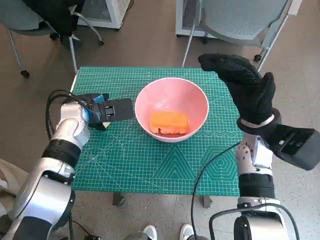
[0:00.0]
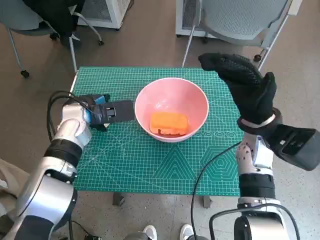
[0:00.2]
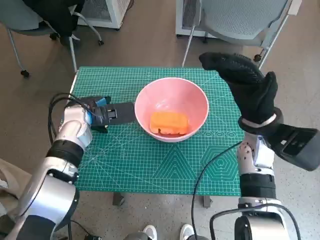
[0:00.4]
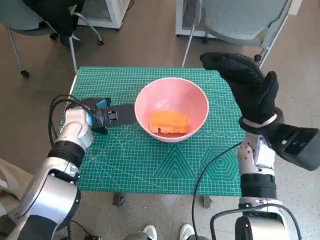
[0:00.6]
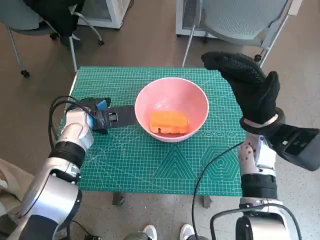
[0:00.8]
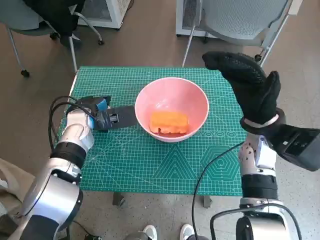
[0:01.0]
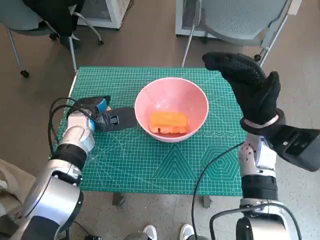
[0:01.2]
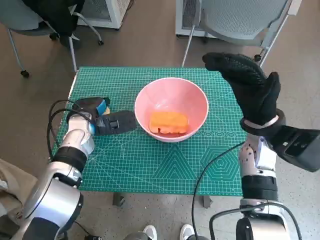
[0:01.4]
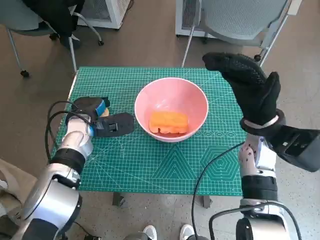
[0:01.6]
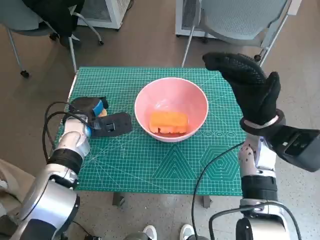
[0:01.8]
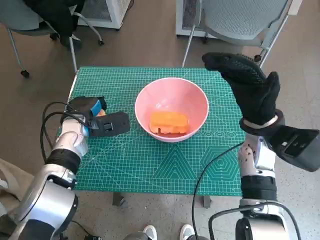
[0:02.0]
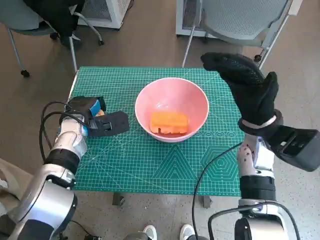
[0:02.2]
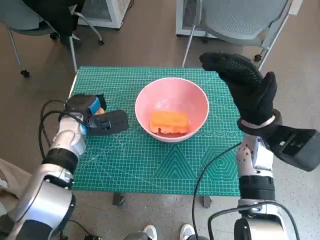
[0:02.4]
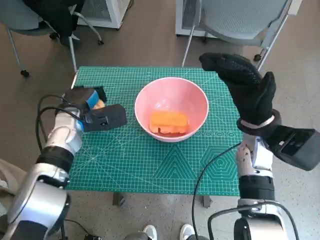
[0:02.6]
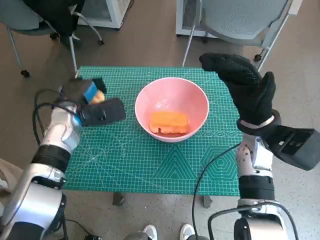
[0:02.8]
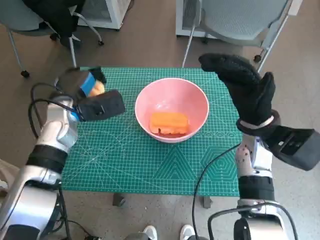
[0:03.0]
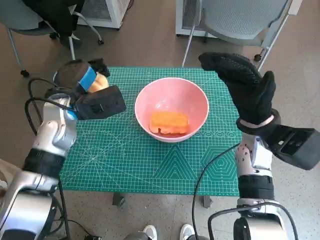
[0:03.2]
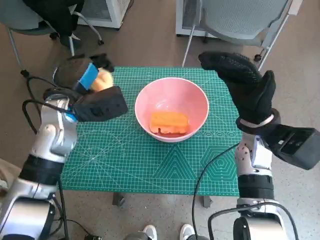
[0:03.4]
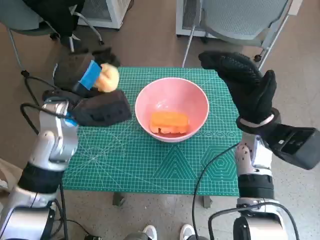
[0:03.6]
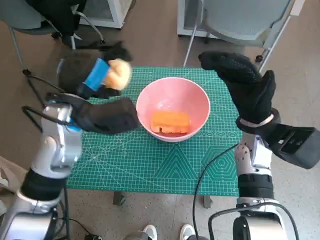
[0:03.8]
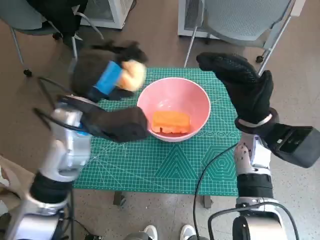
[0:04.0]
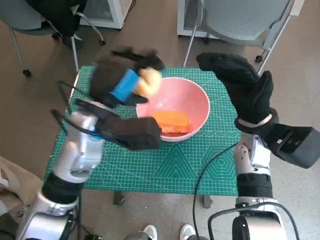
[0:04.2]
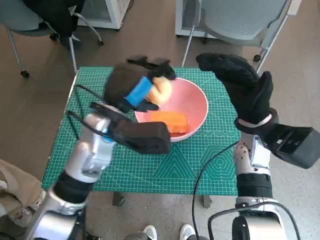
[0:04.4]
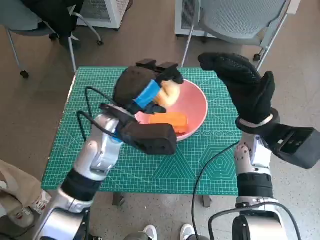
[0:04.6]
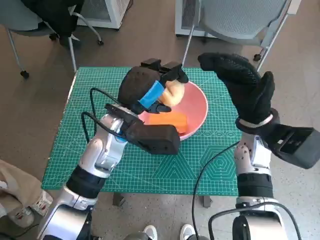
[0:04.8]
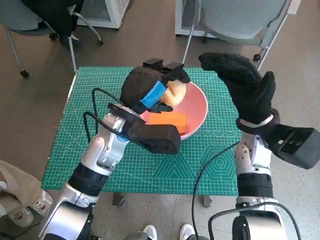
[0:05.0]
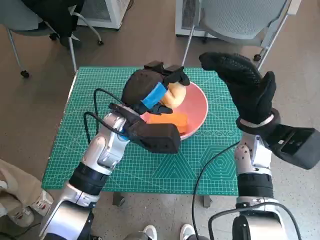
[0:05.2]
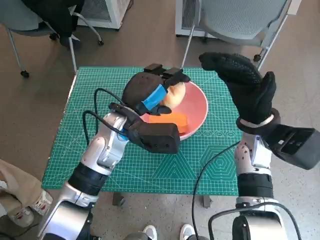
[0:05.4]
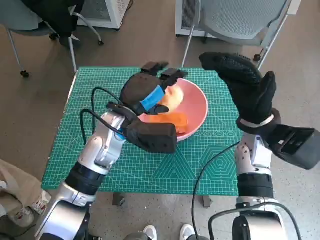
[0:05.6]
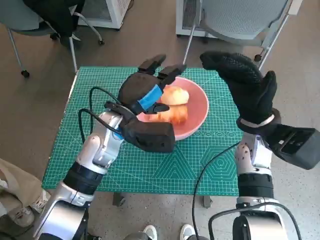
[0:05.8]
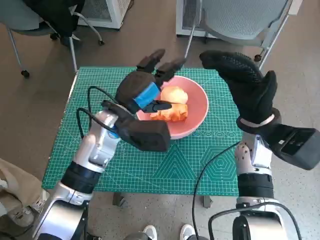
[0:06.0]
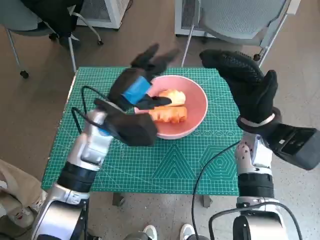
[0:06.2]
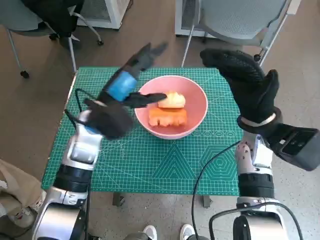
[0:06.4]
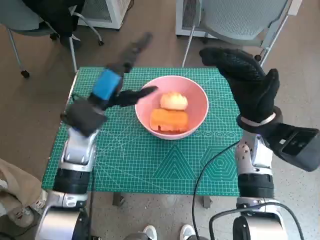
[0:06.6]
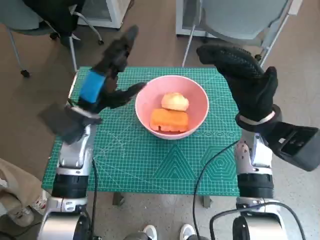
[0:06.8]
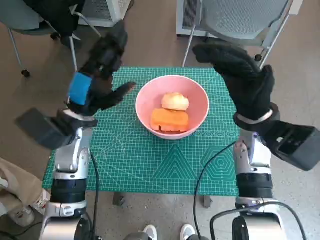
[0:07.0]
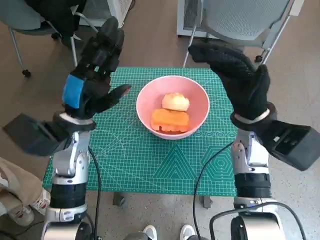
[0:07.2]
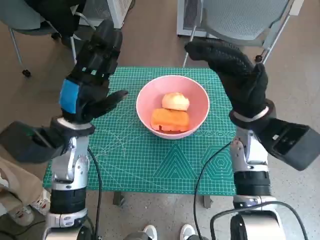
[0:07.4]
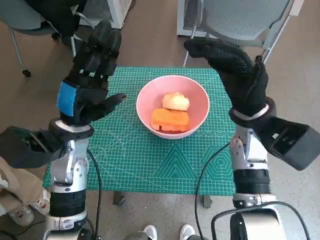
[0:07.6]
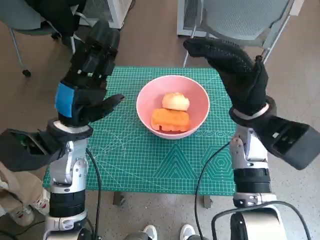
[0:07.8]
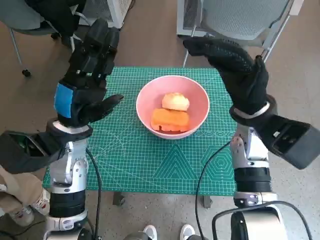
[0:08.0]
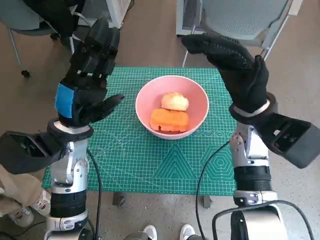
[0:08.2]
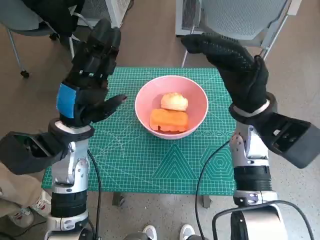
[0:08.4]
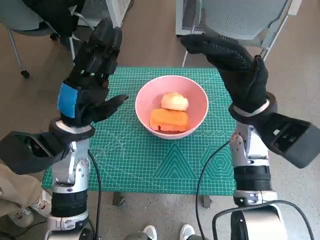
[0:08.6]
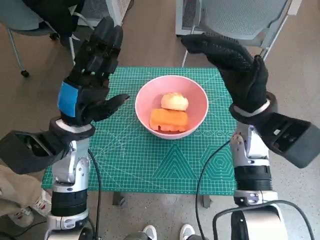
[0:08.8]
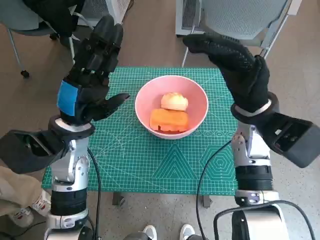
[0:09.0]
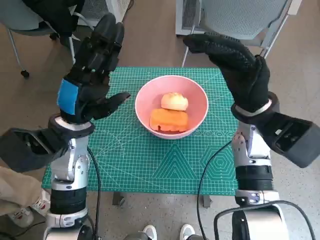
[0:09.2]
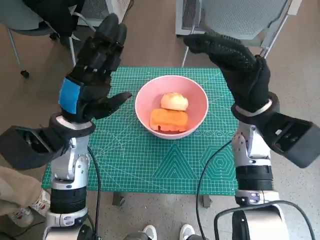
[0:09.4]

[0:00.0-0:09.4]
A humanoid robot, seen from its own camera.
Step, 1.8 to 5.8 s: Place the round bread in pink bowl with left hand.
0.0 to 1.6 s: The hands move only a little.
1.6 to 3.2 s: The left hand heads upward, covering about 5 cm.
3.2 to 4.8 s: The left hand goes some 10 cm to the right.
4.8 to 6.2 s: The hands move only a little.
6.2 to 7.8 s: The left hand travels to the left by approximately 5 cm.
7.8 to 9.4 s: Neither hand changes place.

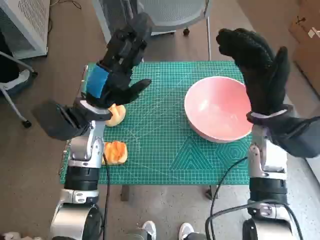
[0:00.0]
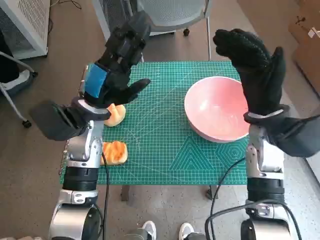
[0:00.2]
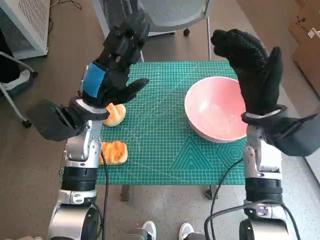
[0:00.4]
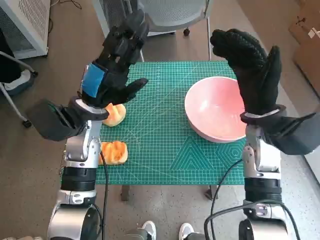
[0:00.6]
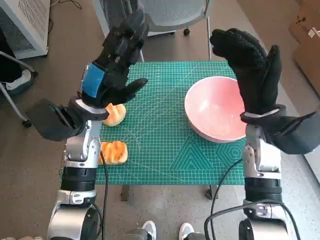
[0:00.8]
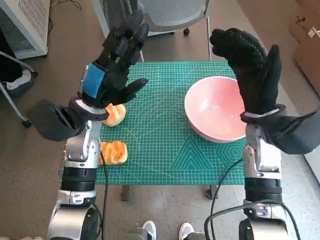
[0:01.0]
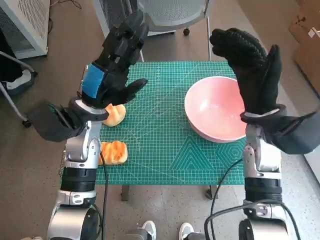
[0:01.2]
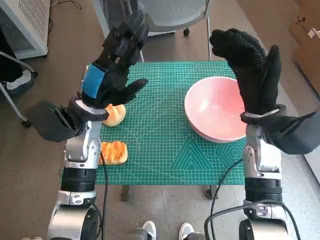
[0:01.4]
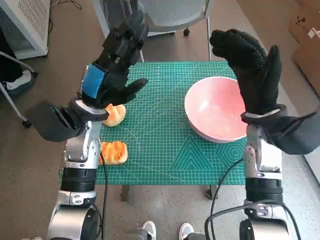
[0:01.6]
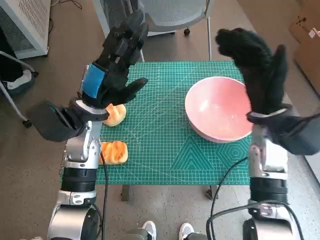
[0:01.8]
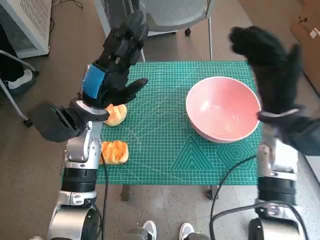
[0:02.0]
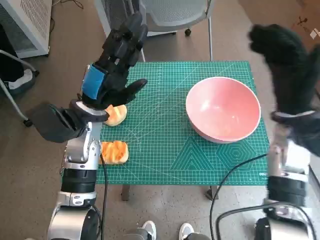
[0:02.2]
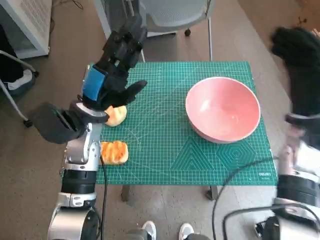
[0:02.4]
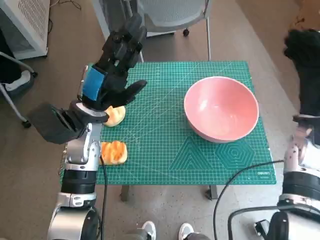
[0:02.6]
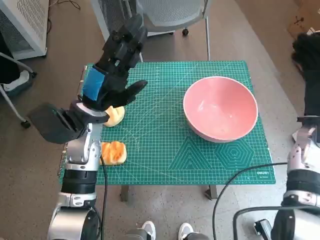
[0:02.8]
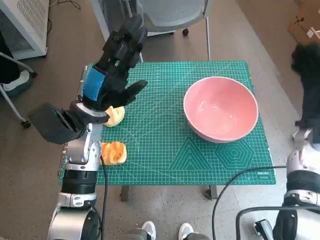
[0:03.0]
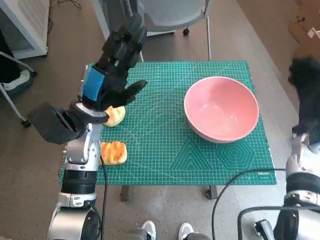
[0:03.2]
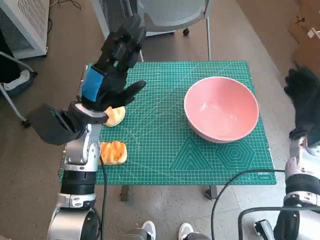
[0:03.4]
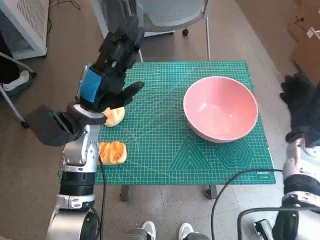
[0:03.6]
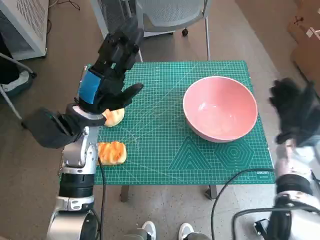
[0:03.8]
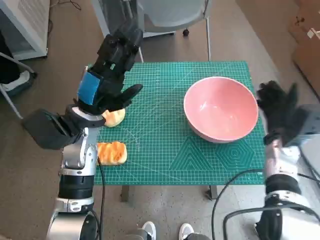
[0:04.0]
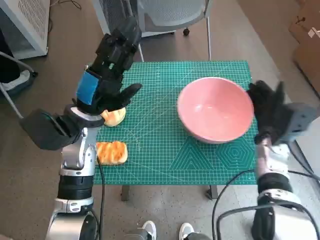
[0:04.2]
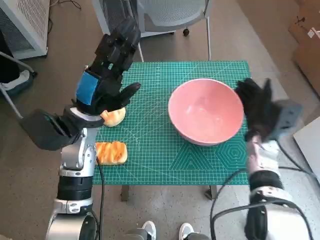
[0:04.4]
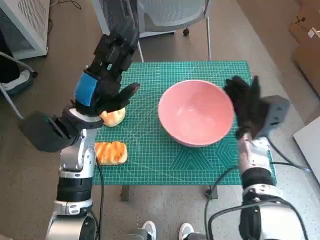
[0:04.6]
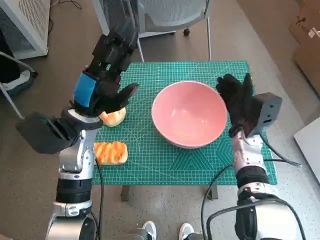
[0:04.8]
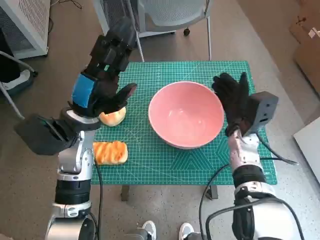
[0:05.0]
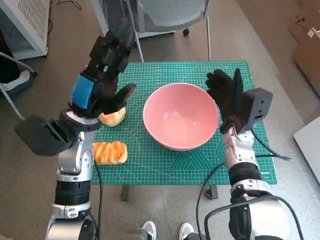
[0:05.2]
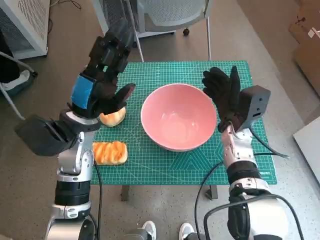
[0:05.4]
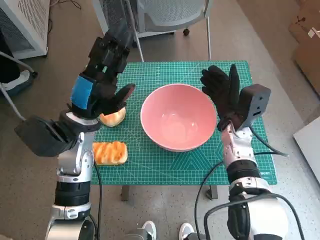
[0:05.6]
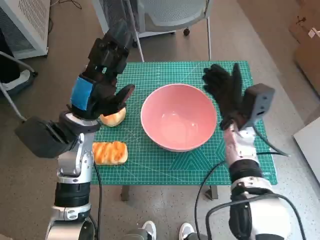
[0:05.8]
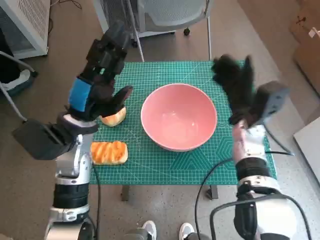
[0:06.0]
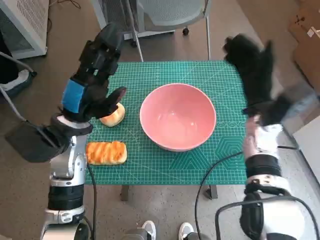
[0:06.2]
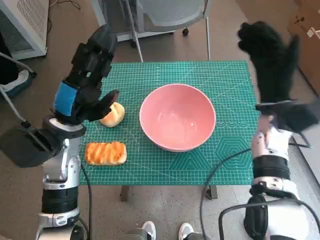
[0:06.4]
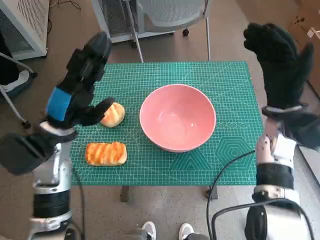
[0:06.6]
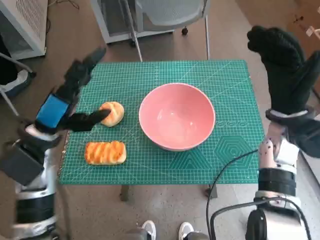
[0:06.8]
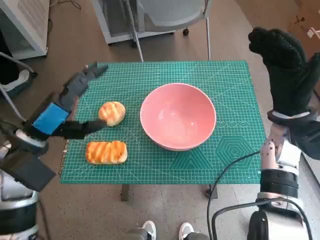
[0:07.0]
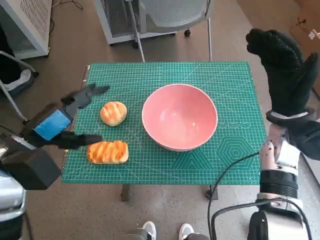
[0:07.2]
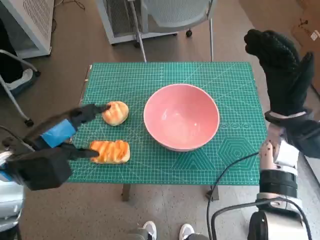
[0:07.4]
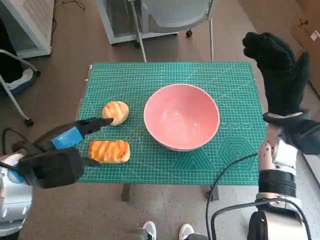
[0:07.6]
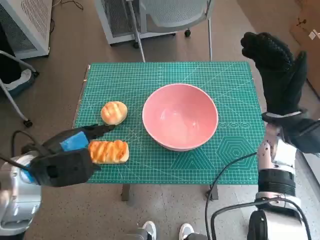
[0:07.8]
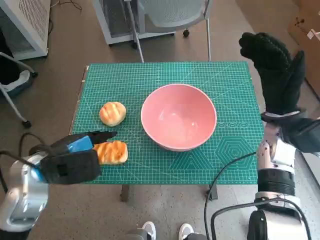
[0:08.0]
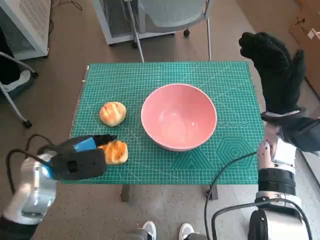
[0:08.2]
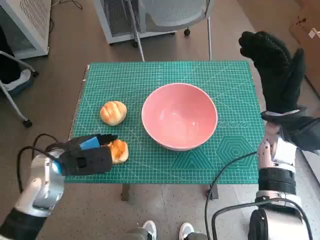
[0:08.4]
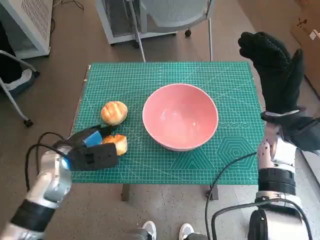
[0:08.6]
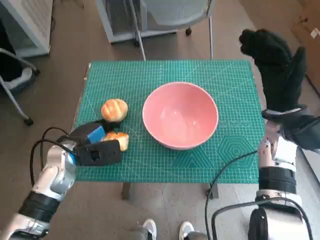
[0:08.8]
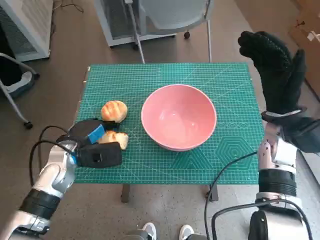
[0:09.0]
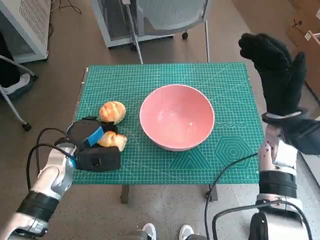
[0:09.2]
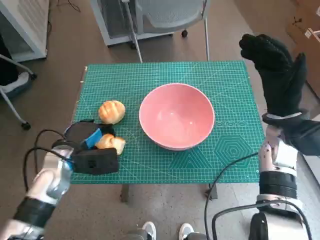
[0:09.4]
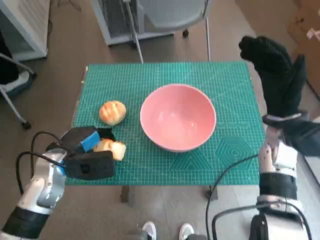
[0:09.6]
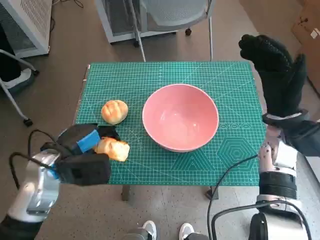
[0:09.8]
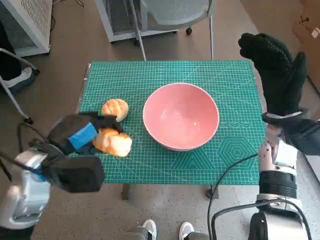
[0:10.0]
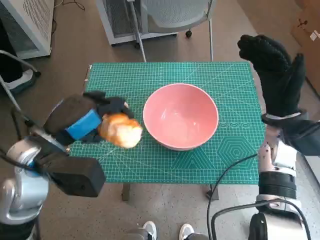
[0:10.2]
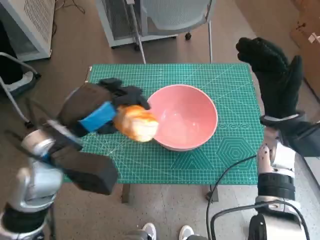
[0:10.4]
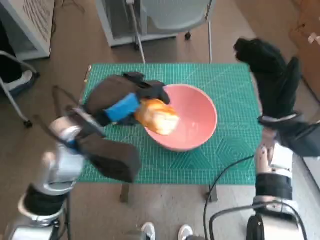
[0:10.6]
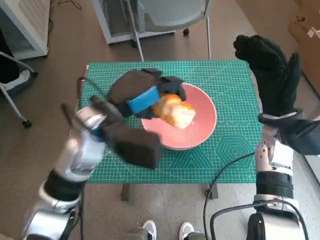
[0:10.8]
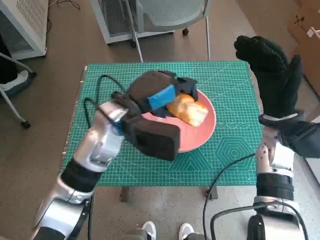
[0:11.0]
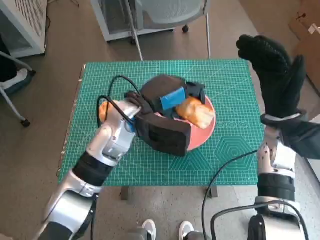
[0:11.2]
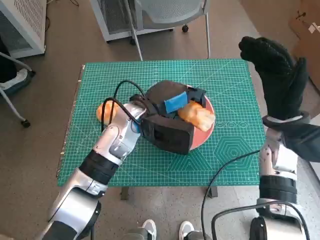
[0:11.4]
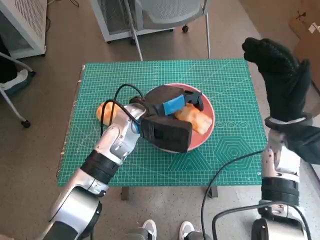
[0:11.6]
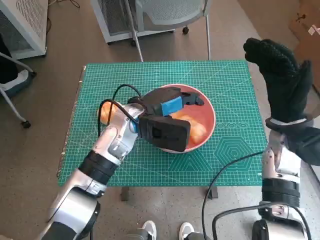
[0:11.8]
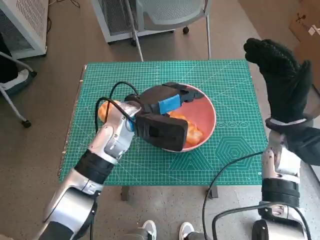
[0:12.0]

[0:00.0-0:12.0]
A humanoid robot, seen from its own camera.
Step, 0.0 to 5.8 s: Move the pink bowl to the center of table with right hand.
Step, 6.0 to 9.2 s: Grasp the long bread with left hand.
Step, 9.4 to 12.0 s: Place the long bread in pink bowl with left hand.
1.6 to 3.0 s: The right hand travels to the right by roughly 10 cm.
3.0 to 4.4 s: The right hand travels to the left and downward by some 10 cm.
4.4 to 6.0 s: The right hand shifts by approximately 5 cm.
6.0 to 7.6 s: The left hand goes approximately 10 cm backward and to the left. The right hand is displaced upward and to the right by some 10 cm.
7.6 to 9.0 s: The left hand travels downward and forward by about 10 cm.
9.0 to 10.4 s: The left hand shifts approximately 15 cm upward.
10.4 to 12.0 s: The left hand moves to the right, forward and downward, roughly 15 cm.

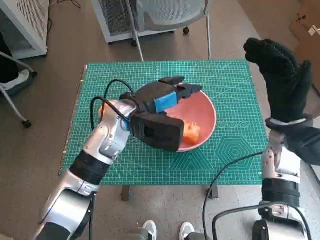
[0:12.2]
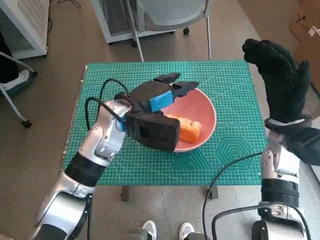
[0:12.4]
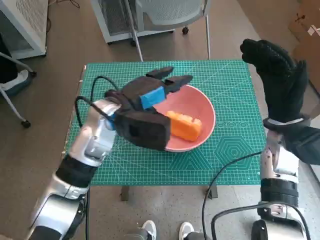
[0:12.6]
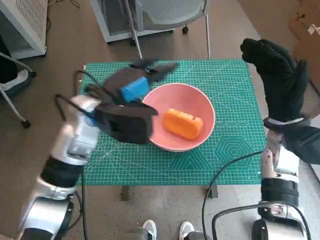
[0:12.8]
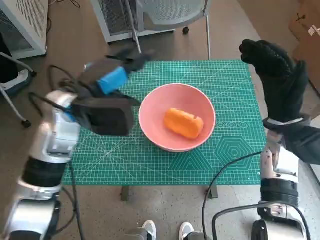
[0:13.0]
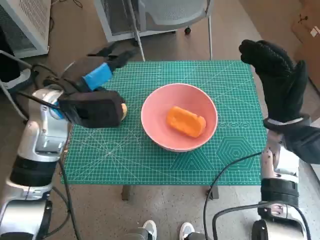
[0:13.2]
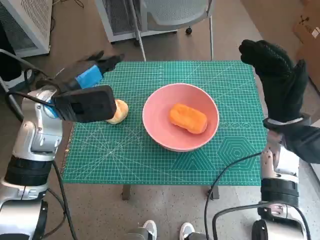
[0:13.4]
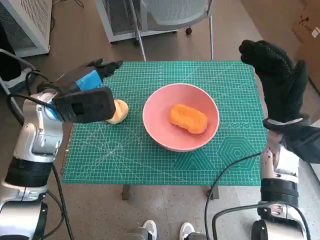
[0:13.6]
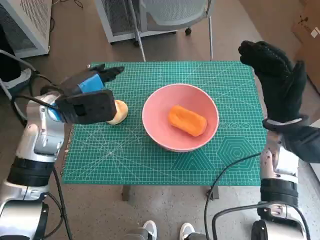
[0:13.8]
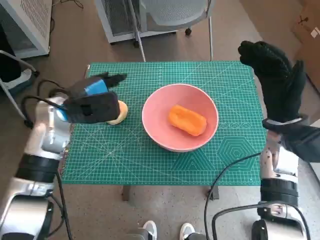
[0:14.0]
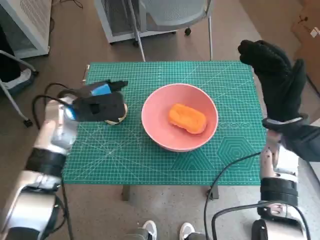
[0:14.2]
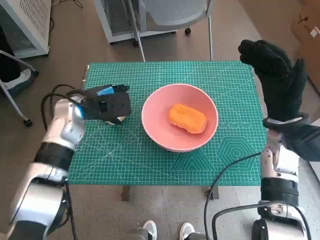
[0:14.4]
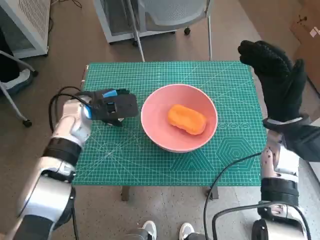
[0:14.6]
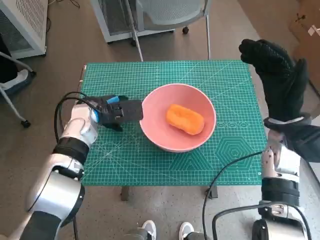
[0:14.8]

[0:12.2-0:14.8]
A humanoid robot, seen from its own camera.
12.2 to 13.4 s: The left hand goes approximately 15 cm to the left and upward.
13.4 to 14.8 s: The left hand shifts roughly 10 cm downward.
